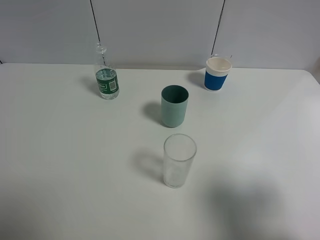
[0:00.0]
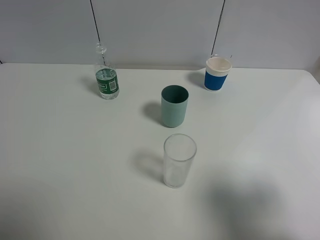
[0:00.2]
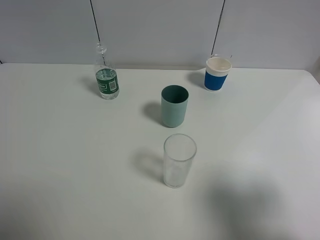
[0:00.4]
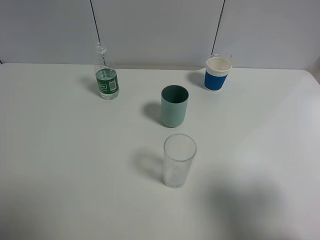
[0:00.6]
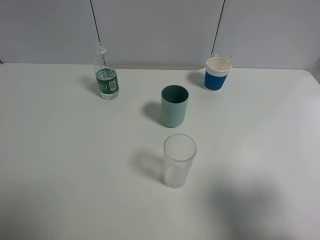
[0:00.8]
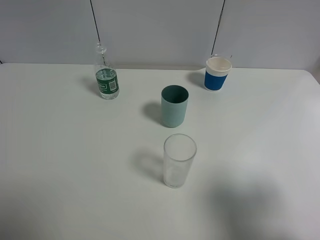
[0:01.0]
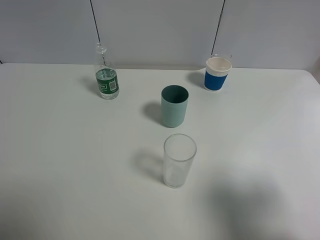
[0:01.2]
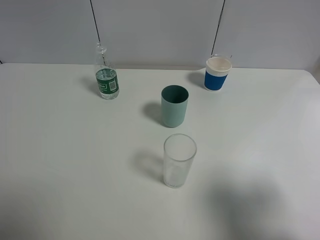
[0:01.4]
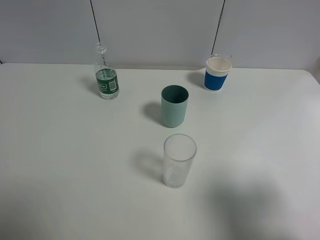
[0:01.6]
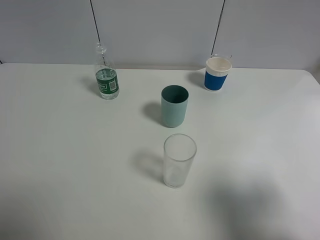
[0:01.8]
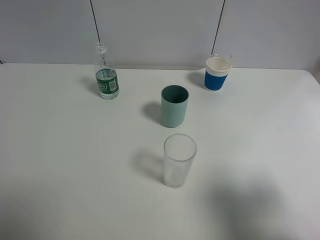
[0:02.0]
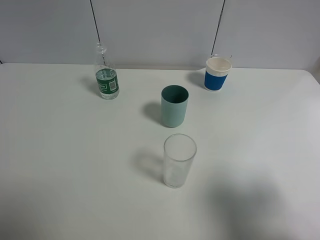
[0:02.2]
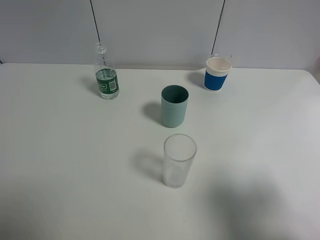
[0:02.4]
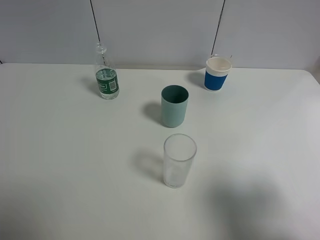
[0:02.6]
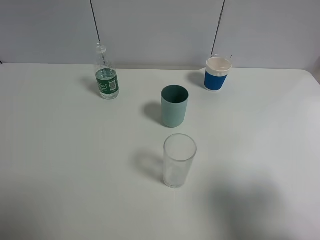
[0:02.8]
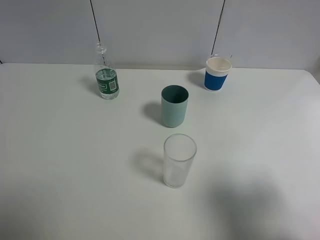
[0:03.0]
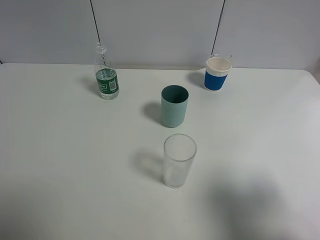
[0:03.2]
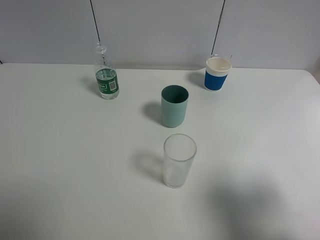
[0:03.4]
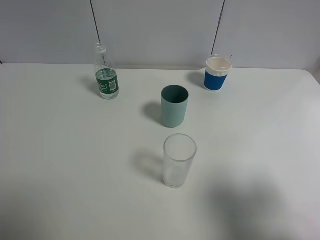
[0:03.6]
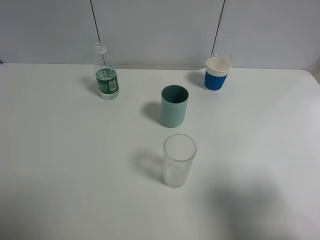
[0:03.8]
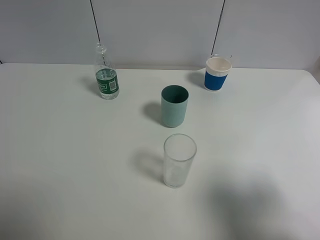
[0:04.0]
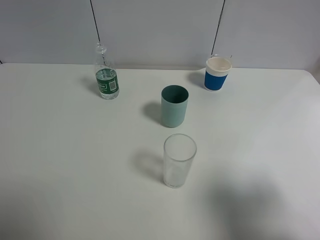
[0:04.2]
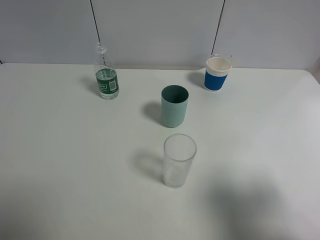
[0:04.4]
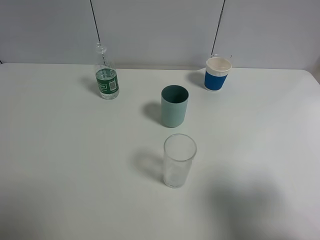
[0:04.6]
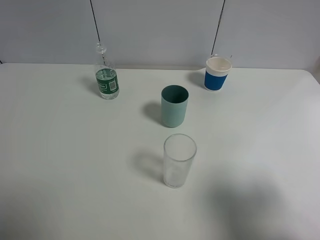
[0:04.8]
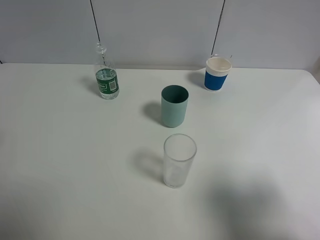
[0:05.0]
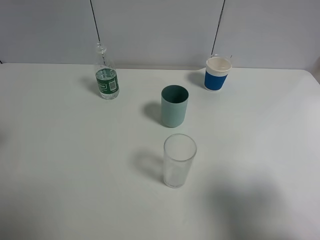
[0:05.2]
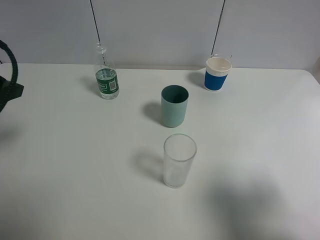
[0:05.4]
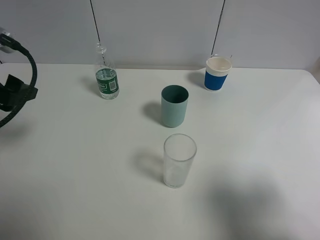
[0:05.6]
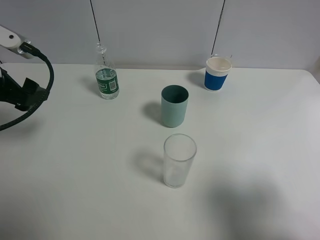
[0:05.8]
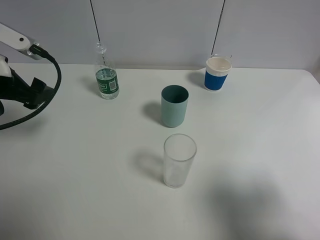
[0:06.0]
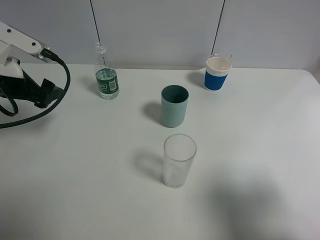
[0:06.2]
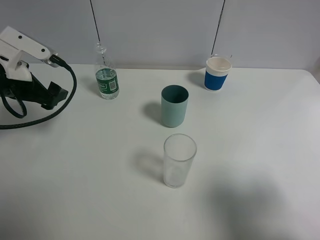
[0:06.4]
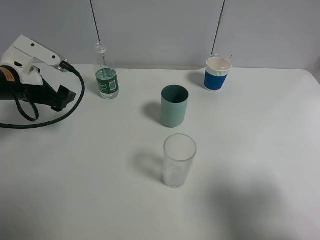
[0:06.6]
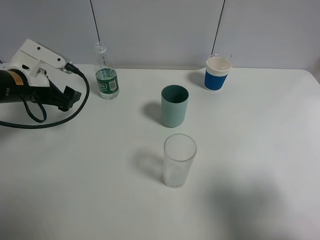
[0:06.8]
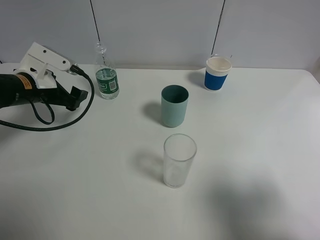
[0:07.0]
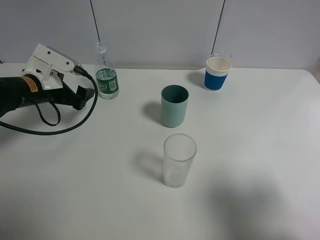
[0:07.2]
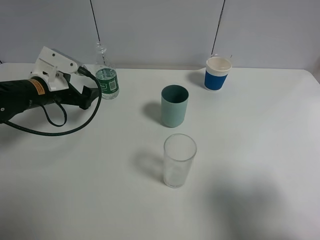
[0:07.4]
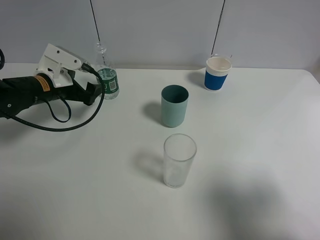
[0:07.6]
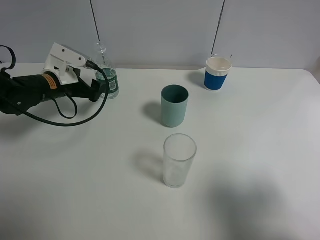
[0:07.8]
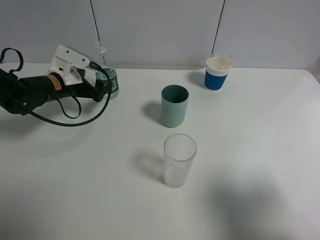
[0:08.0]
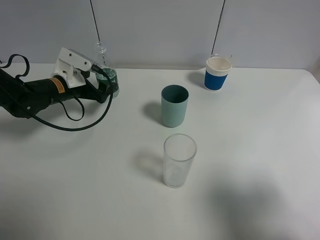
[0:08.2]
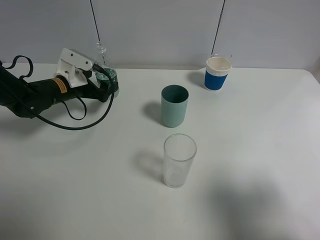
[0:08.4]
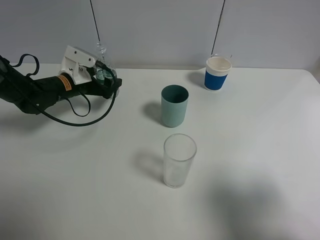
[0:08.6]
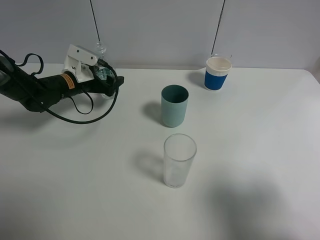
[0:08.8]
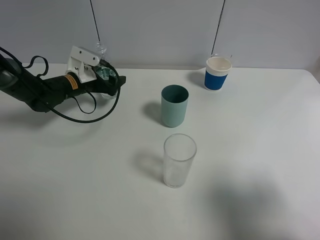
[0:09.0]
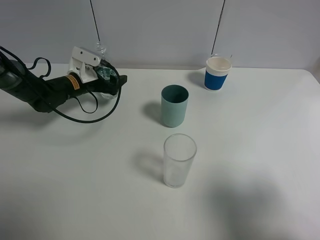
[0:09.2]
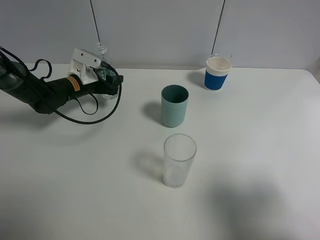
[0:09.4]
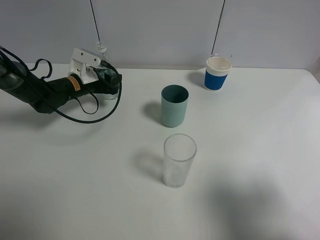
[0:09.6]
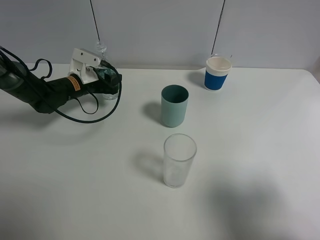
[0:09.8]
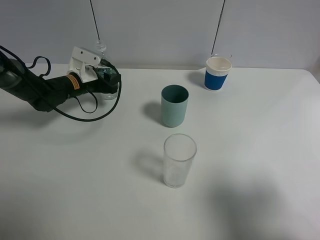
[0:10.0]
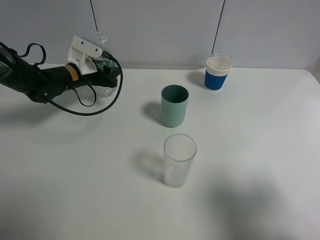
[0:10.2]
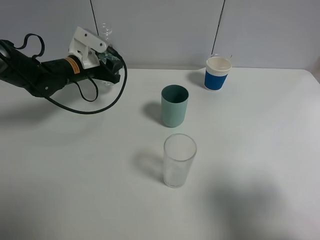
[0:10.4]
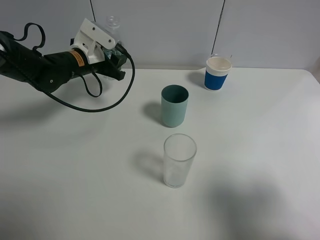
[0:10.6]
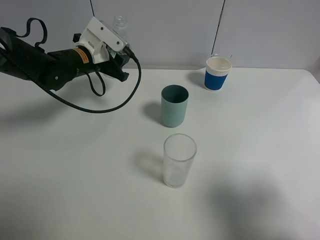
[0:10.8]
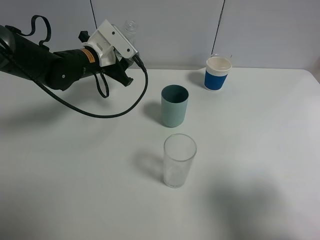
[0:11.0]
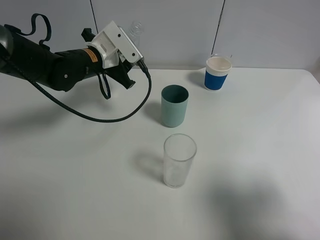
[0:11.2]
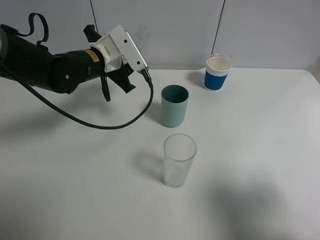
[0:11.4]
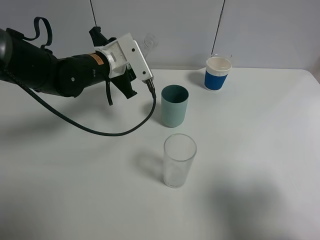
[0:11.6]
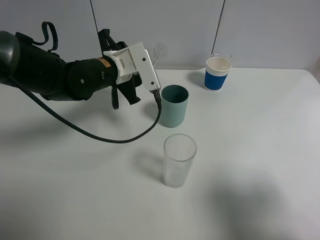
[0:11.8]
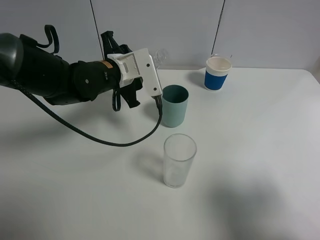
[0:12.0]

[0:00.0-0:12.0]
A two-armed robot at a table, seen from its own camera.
Task of the whole recording: use a gripper to hold the bottle of the drink and pour it into a random cup.
Step, 0:00.0 to 0:09.6: Grasp the mineral water bottle with the left gripper.
0:00.0 to 0:03.0: Both grippers stay about where they are.
0:04.4 to 0:06.0: The left gripper travels forward by some 20 cm.
0:06.0 to 0:07.6: The left gripper travels downward and forward by about 15 cm.
0:07.6 to 0:09.0: The left gripper travels forward by roughly 5 cm.
0:09.0 to 0:10.4: The left gripper moves upward, some 5 cm, and closes.
0:10.4 to 0:12.0: The left gripper travels to the right and backward by some 10 cm.

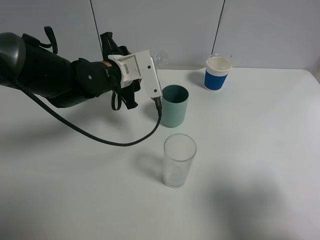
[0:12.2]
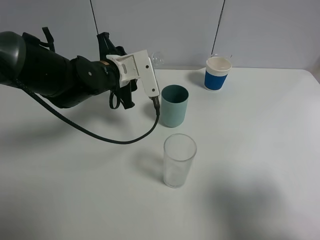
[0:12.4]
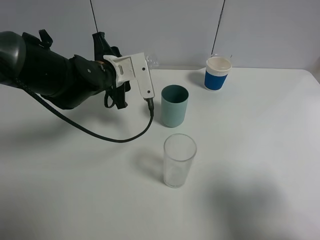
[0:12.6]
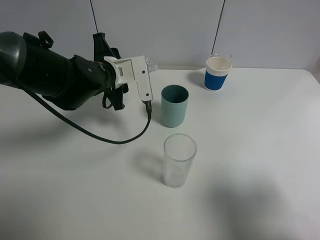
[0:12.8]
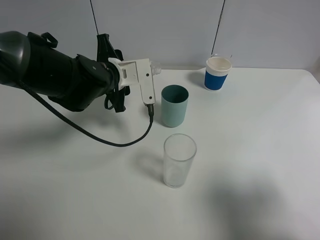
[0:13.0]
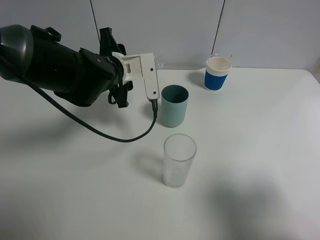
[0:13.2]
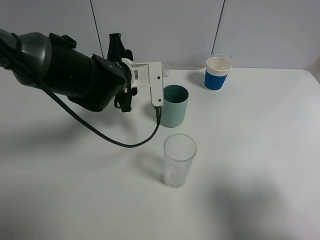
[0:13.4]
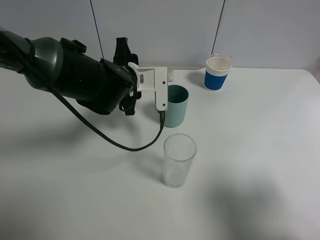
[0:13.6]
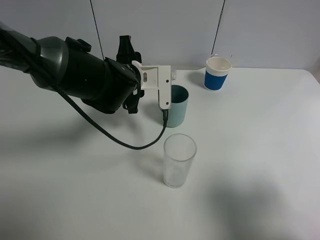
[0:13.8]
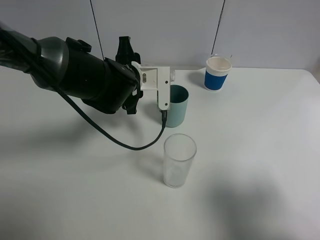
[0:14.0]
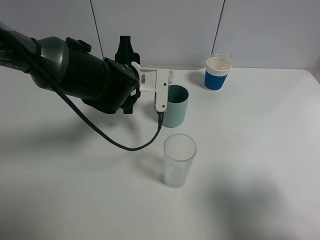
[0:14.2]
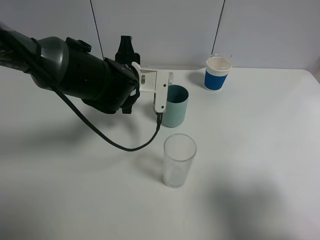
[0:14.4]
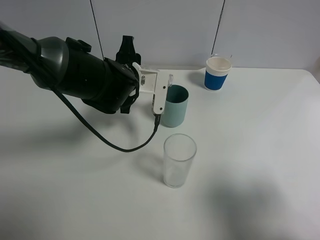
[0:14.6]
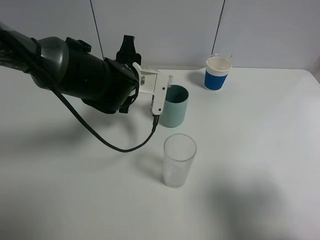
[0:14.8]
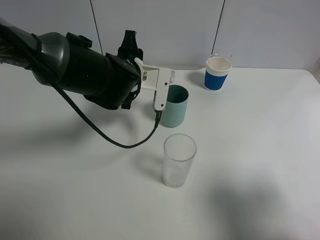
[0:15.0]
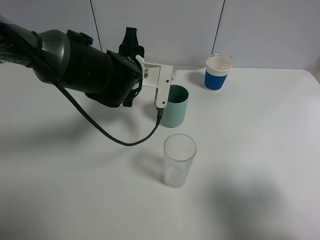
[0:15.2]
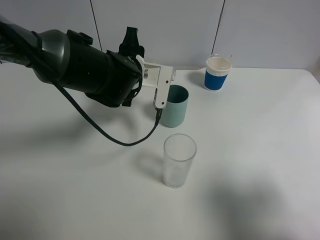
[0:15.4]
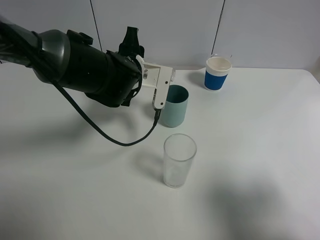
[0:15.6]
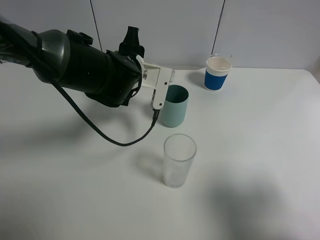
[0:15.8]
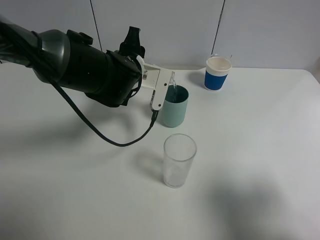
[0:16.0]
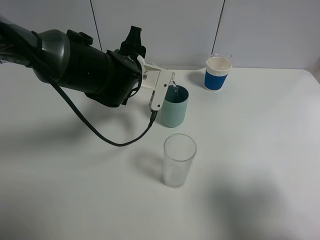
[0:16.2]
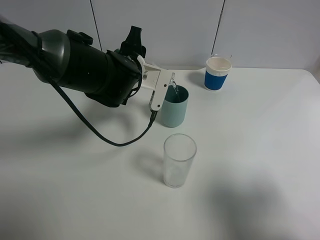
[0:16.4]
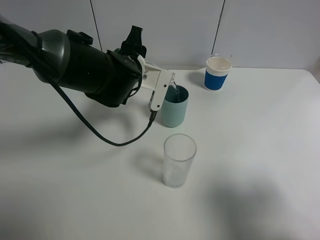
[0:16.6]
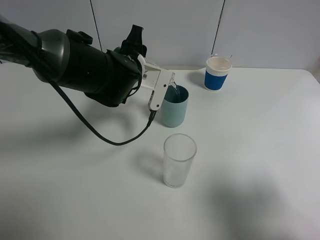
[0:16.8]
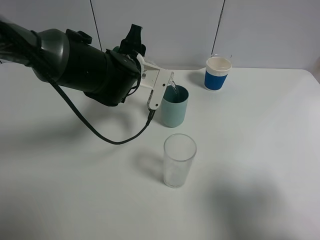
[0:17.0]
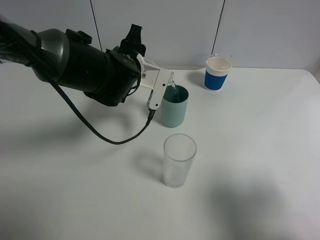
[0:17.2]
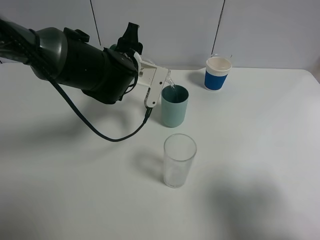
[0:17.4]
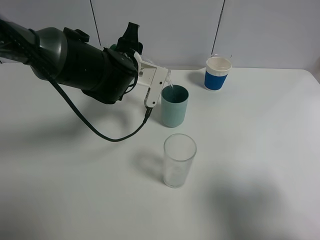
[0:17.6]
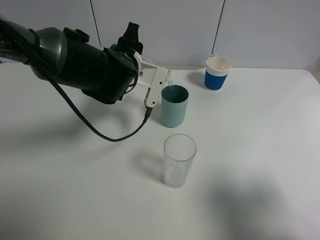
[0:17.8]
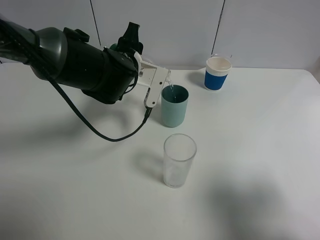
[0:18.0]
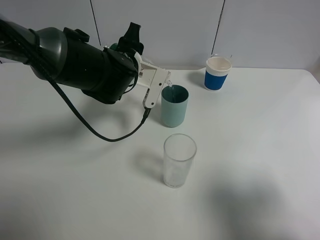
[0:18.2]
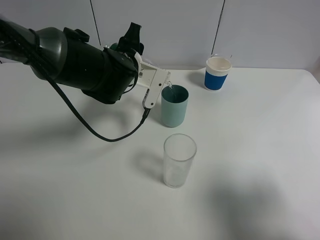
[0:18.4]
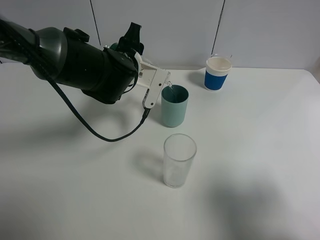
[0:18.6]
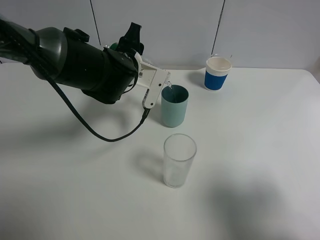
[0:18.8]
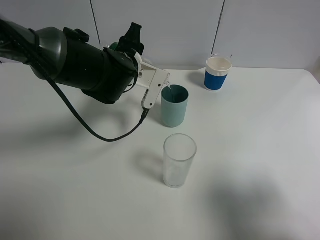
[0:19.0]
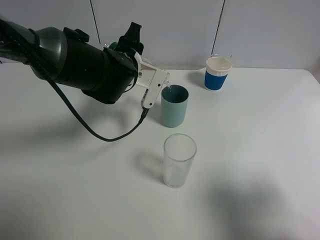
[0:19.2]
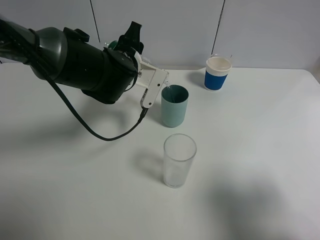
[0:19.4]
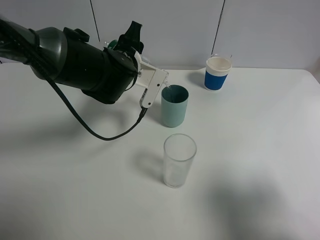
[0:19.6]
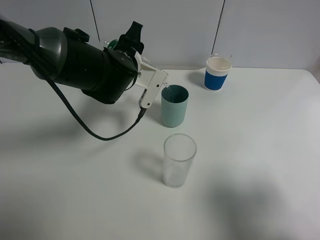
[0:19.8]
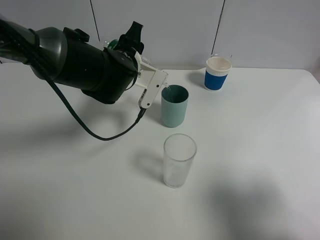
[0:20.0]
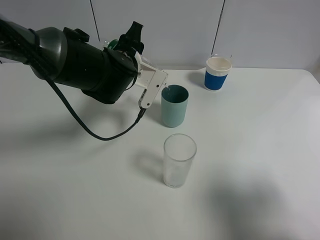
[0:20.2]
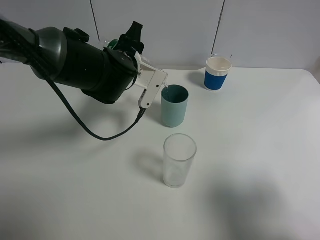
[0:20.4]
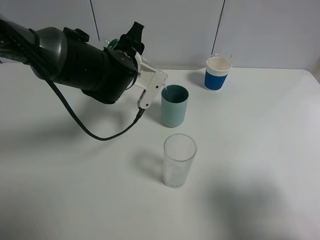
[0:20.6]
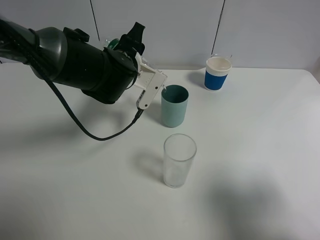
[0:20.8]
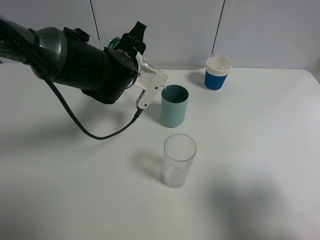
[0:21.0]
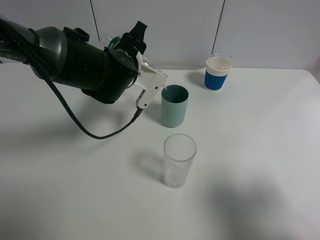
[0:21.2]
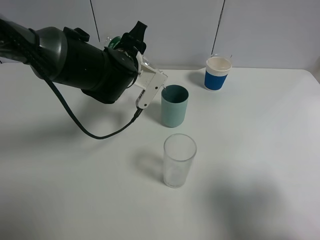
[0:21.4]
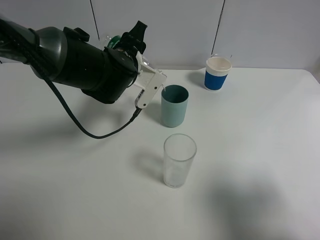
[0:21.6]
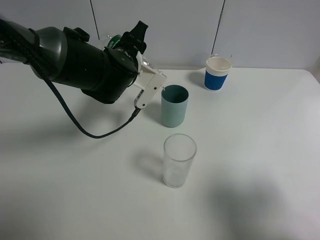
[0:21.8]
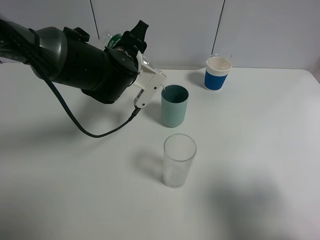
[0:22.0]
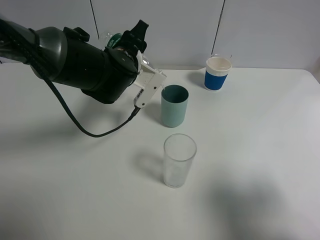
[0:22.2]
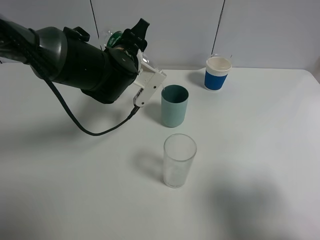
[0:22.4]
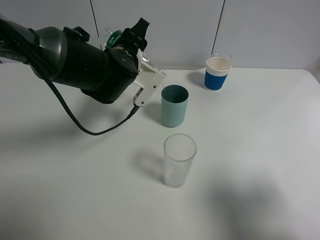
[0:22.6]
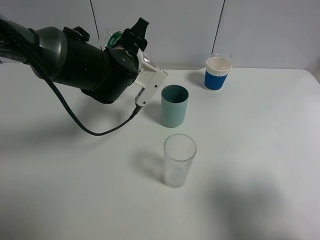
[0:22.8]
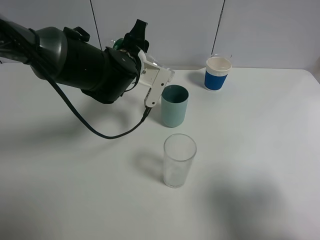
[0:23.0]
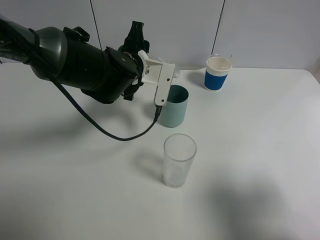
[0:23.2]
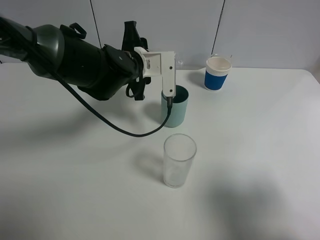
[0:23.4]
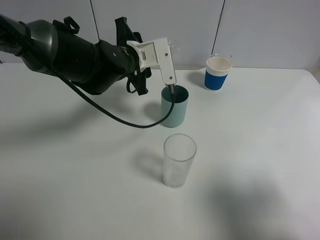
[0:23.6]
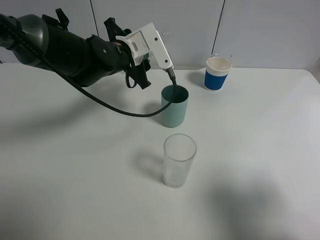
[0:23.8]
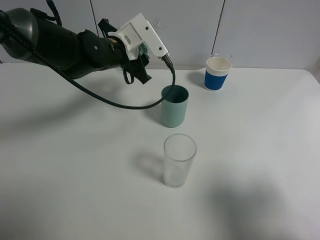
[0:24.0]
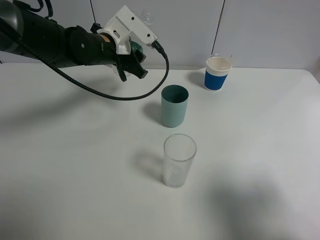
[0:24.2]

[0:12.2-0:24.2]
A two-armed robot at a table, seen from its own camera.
Task of the whole recording: use a gripper to hold the bottle of the drink and pour it into a random cup.
Step, 0:12.2 to 0:23.2: Pour the mineral water into the cyan cup with the left gripper.
0:13.8 to 0:16.6: There are only small adjustments of the grippers.
0:16.6 to 0:18.2: Neither gripper changes place.
0:18.2 to 0:22.6: There are only small adjustments of the grippers.
0:22.6 to 0:24.2: The left gripper moves roughly 5 cm.
